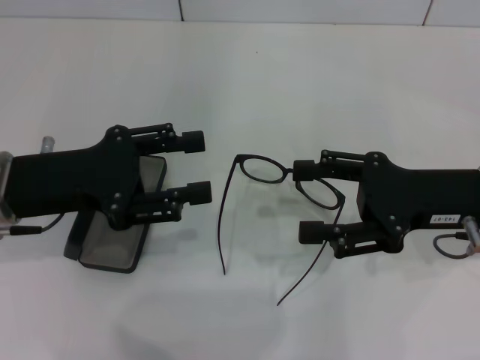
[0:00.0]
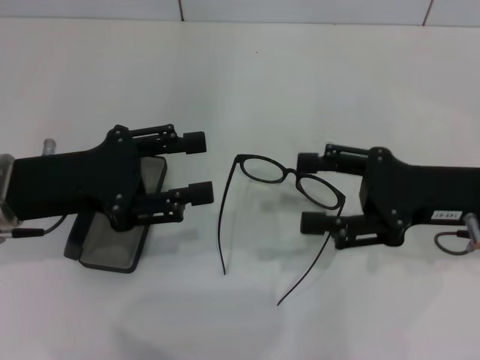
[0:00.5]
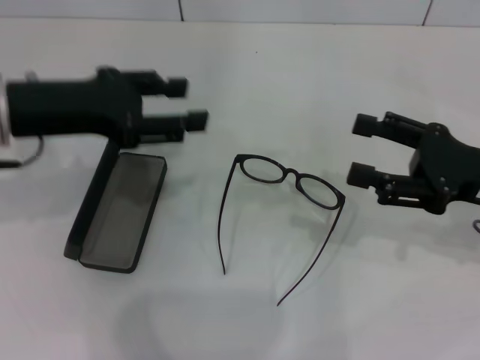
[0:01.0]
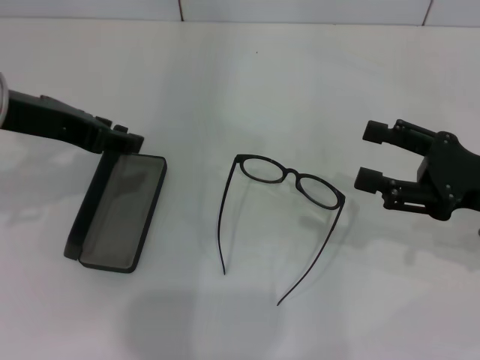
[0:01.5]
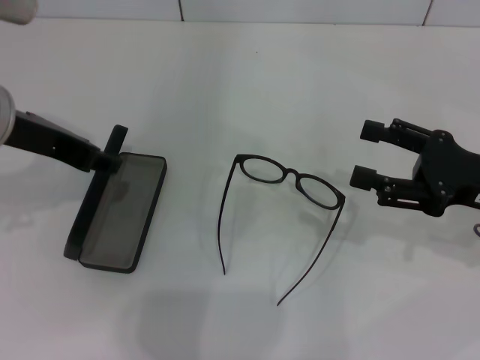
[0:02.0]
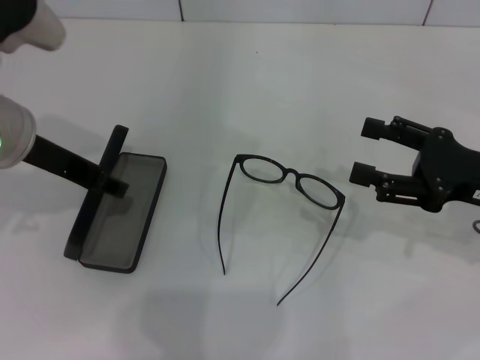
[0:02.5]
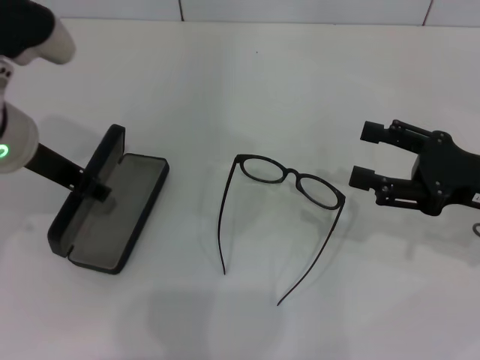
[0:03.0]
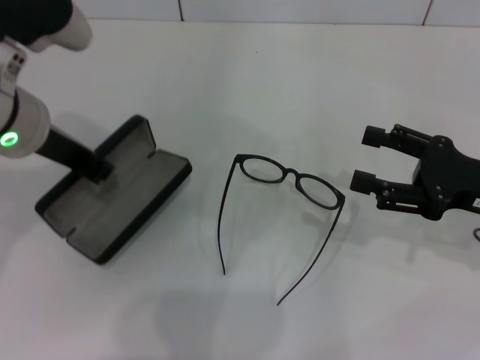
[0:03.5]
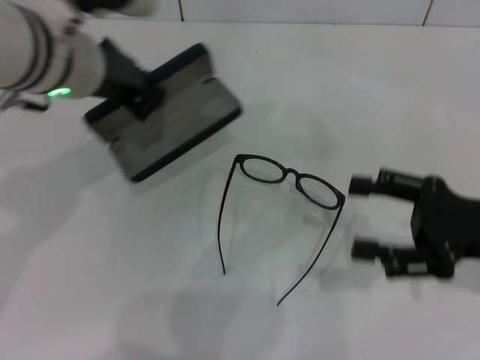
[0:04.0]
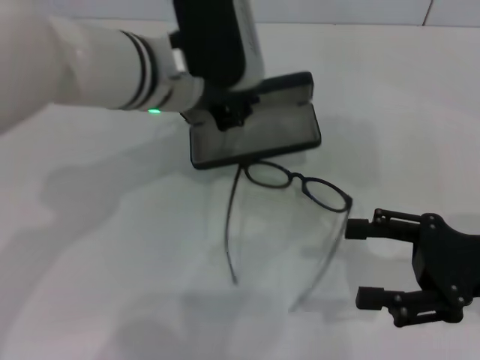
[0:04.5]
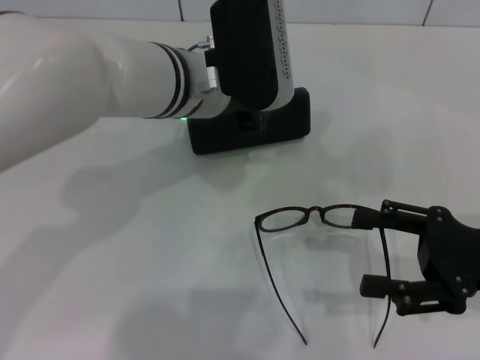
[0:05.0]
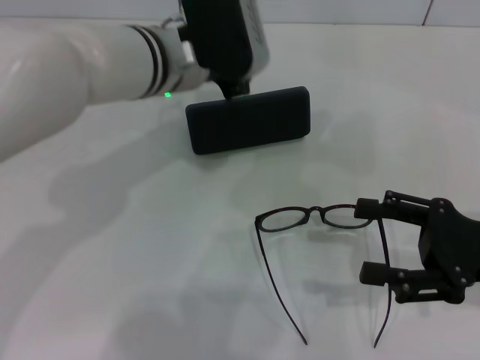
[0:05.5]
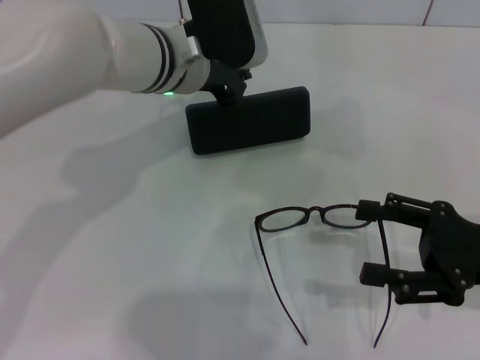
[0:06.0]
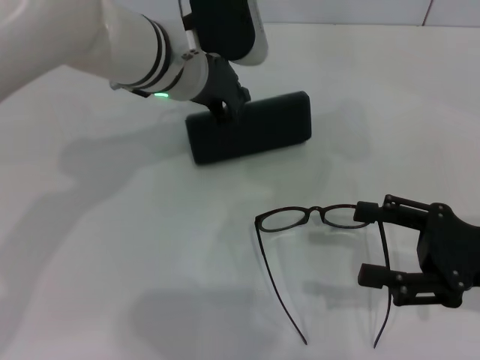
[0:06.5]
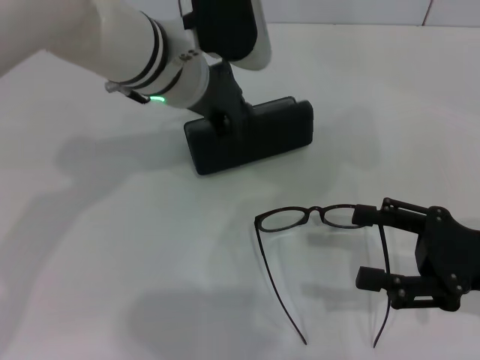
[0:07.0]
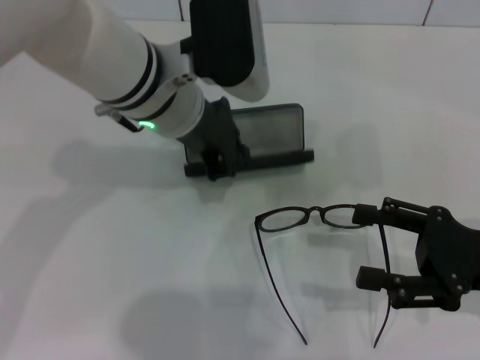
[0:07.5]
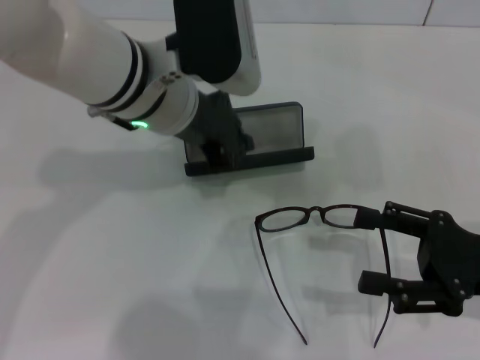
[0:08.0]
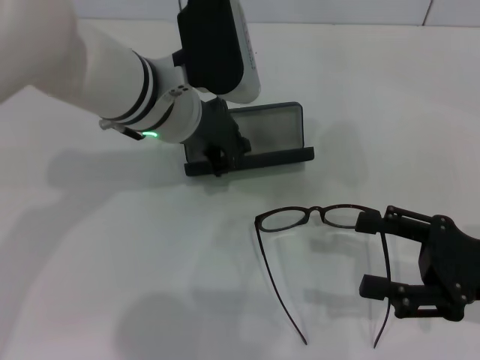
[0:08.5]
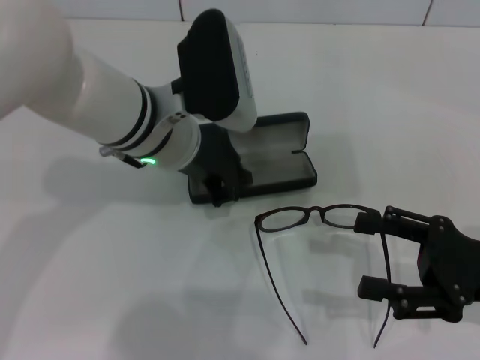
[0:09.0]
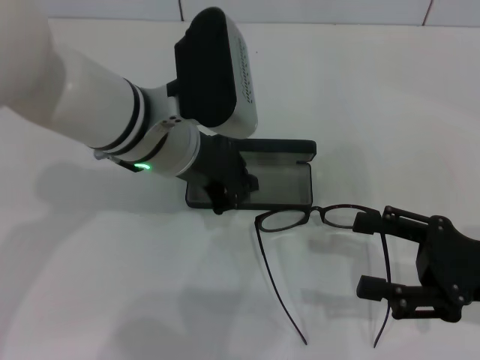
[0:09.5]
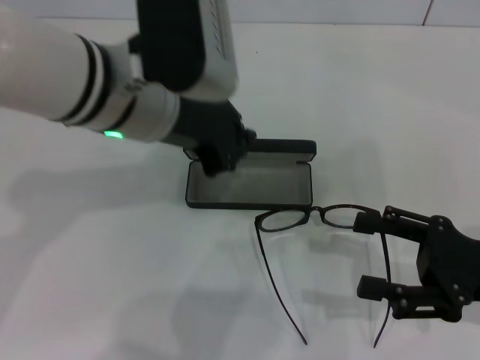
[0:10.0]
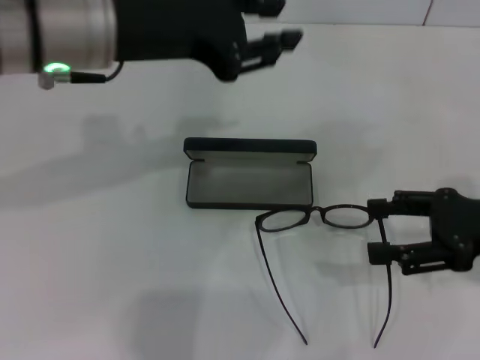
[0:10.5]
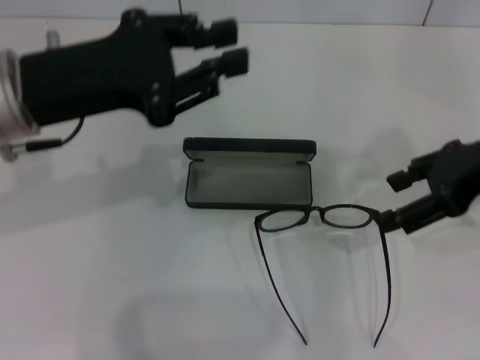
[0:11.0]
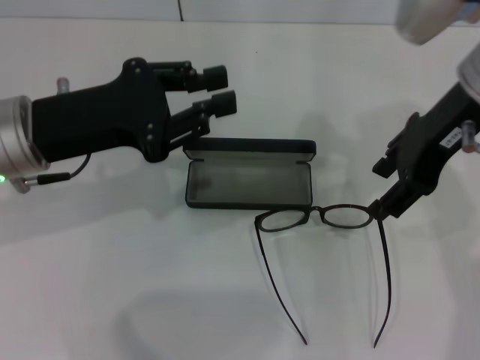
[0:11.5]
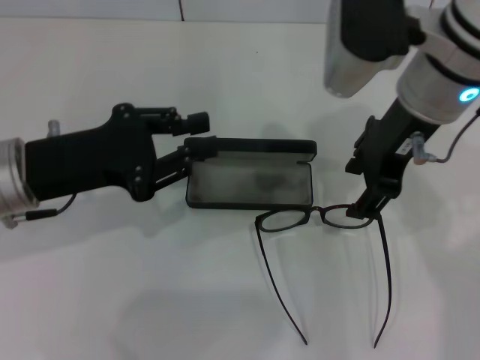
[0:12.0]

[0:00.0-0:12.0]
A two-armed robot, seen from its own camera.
Step, 0:00.0 to 0:03.0: Grab the glasses case with your left hand.
Step, 0:03.5 to 0:09.0: Place the glasses case in the center of the table with your left hand.
0:00.0 to 0:02.0: The left gripper is displaced upward by some 10 cm, while the right gripper moves some 5 cm.
0:02.0 to 0:04.0: The left gripper shifts about 5 cm to the right, and closes.
0:04.0 to 0:06.0: The left gripper travels to the right, downward and forward by about 10 cm.
0:06.0 to 0:08.0: The left gripper shifts roughly 5 cm backward.
0:08.0 to 0:10.0: There are only small adjustments of the grippers.
0:10.0 to 0:12.0: The left gripper is displaced to the left and downward by approximately 15 cm, and opens. Meanwhile the right gripper heads to the left, upward and forward, covering approximately 25 cm.

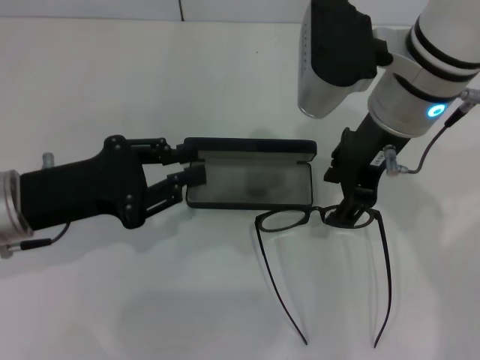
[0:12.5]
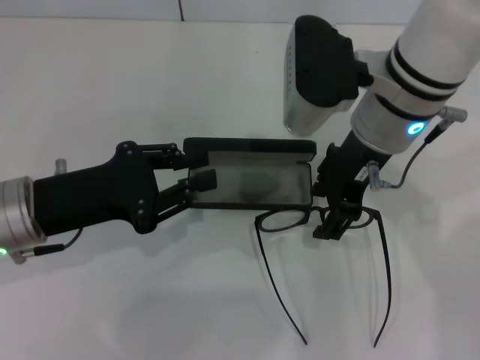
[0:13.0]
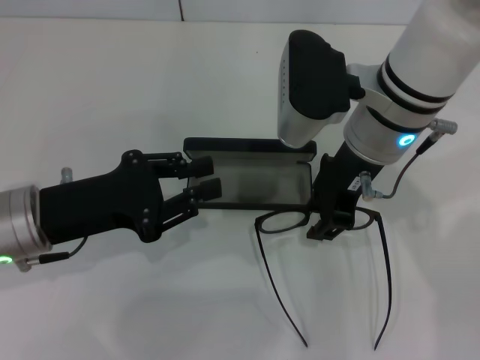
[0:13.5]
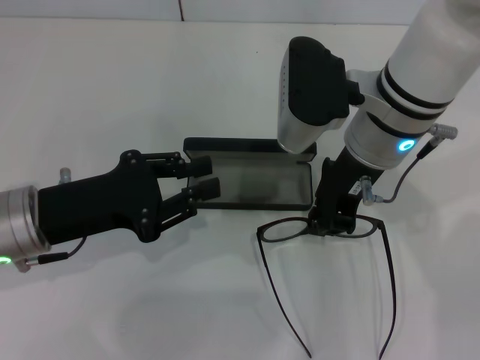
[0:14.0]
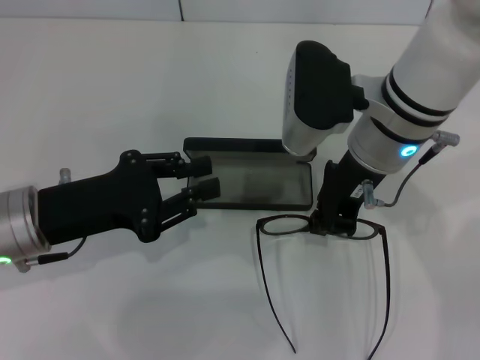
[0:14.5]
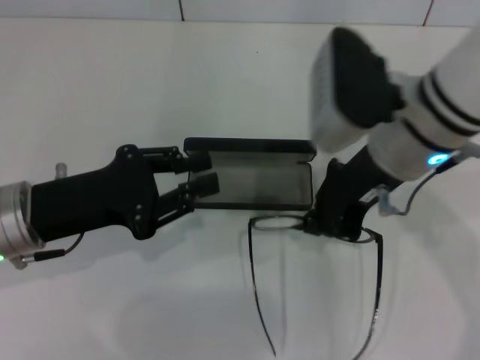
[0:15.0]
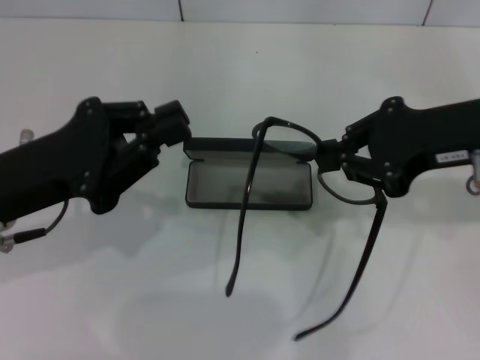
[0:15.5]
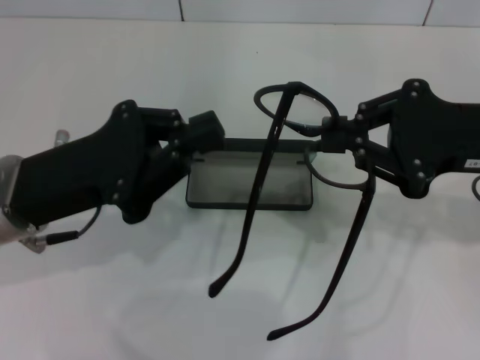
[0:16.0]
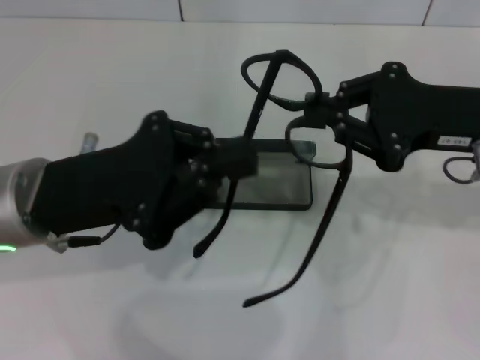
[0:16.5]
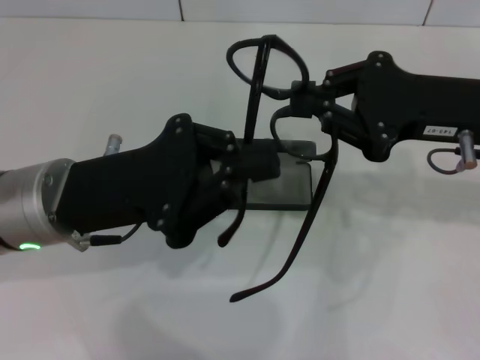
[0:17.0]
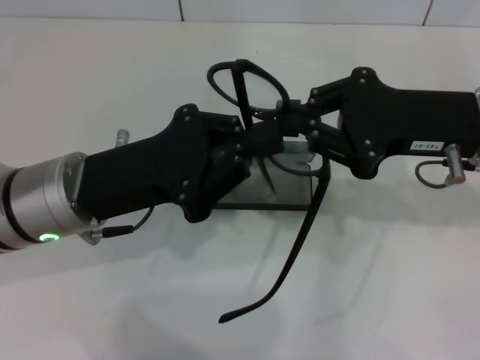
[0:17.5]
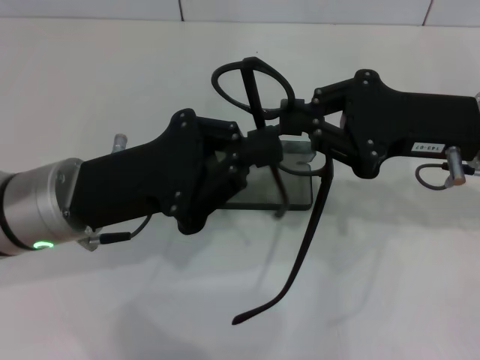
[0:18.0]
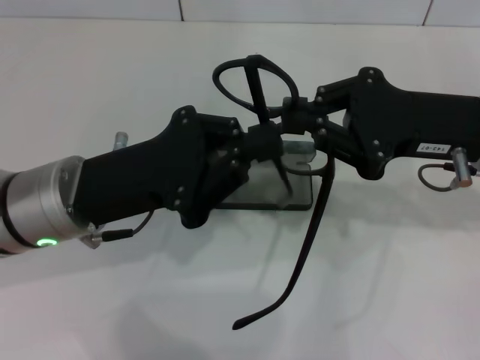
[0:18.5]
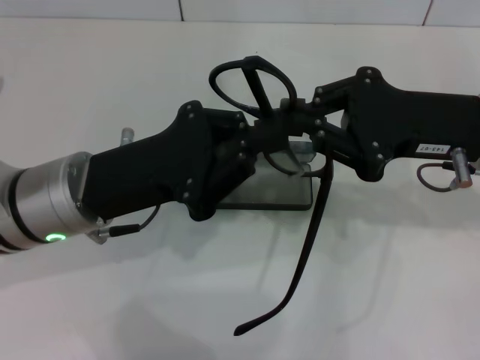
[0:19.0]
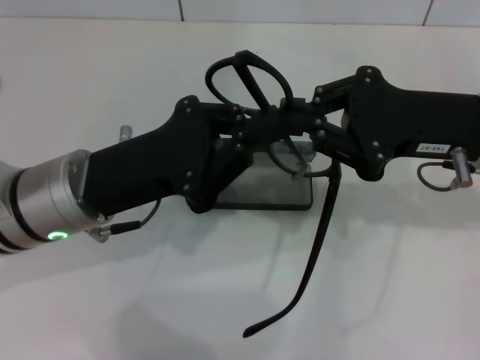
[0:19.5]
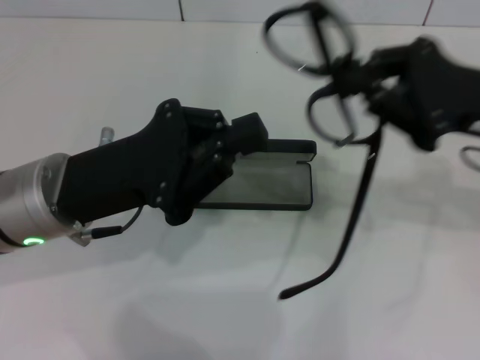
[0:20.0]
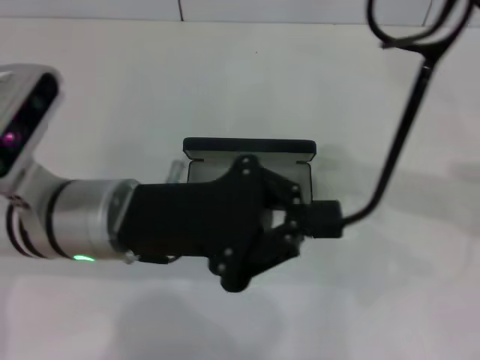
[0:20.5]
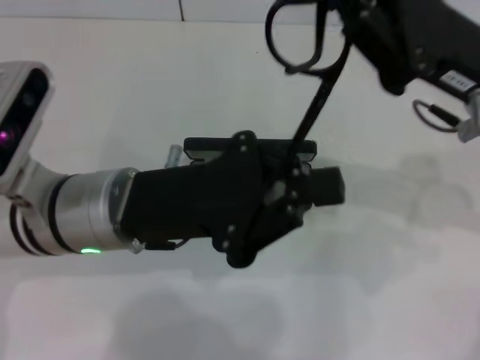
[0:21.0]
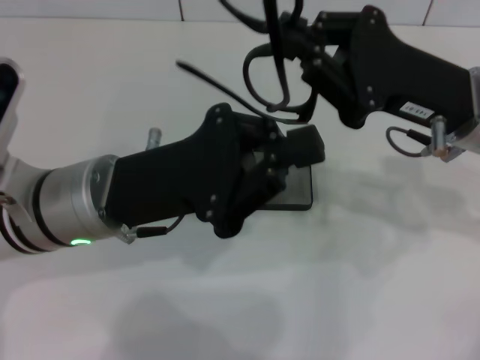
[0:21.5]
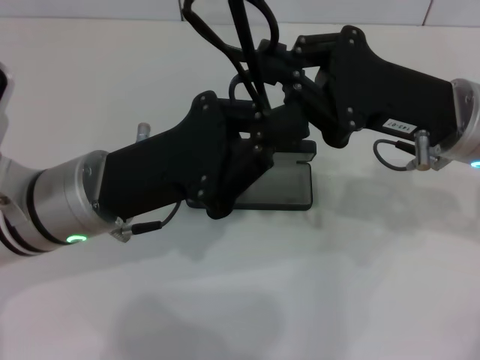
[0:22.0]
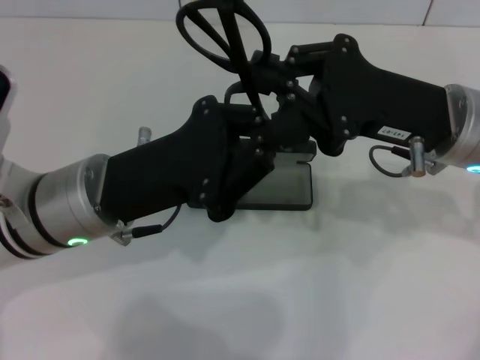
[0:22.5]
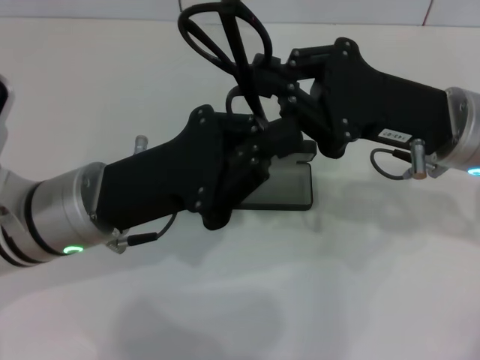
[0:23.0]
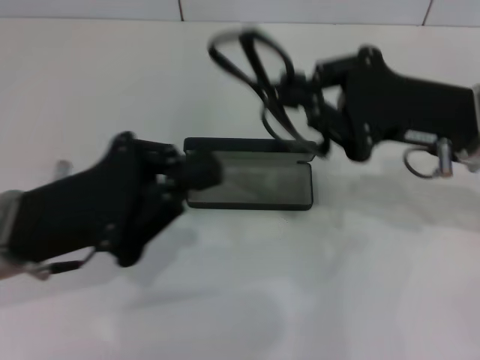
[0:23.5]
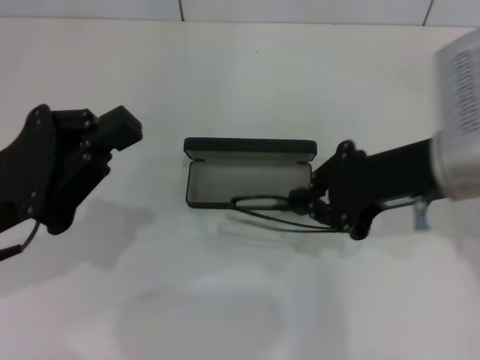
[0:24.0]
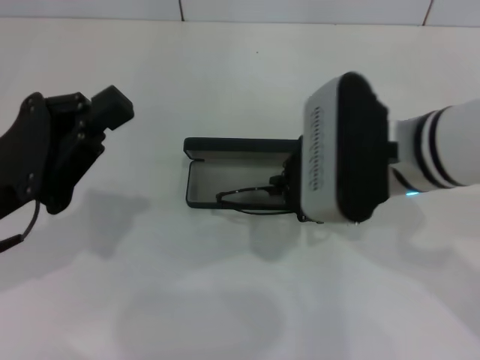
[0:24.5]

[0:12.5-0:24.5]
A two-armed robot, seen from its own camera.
Step, 0:12.5 to 0:14.5: Grab the eyeglass frame with your right hand.
Step, 0:15.0 to 0:23.0: Lift the glasses with your right hand.
0:12.5 to 0:14.5: The right gripper closes its fingers.
0:14.5 to 0:16.5: The right gripper shifts roughly 15 cm to the right; the left gripper moves approximately 5 cm, and closes up.
0:16.5 to 0:18.5: The grippers stay close to where they were, moving slightly.
0:18.5 to 0:20.5: The right gripper moves some 5 cm.
0:20.5 to 0:22.5: The right gripper goes about 10 cm to the left.
0:22.5 to 0:24.5: The left gripper travels to the left by about 10 cm. The right gripper moves to the left, about 5 cm.

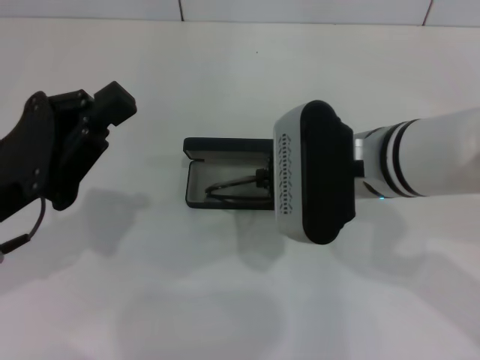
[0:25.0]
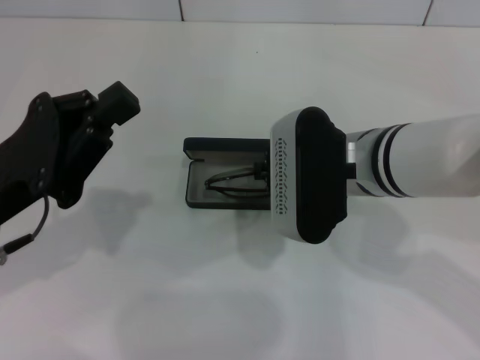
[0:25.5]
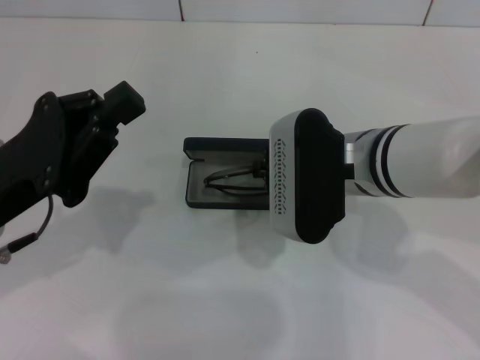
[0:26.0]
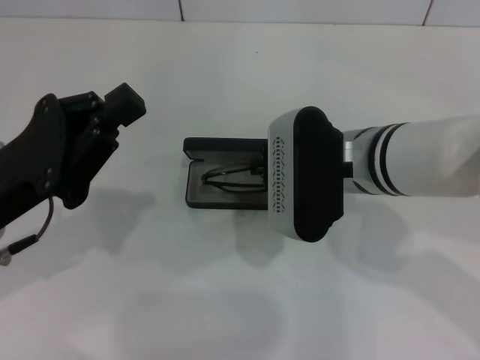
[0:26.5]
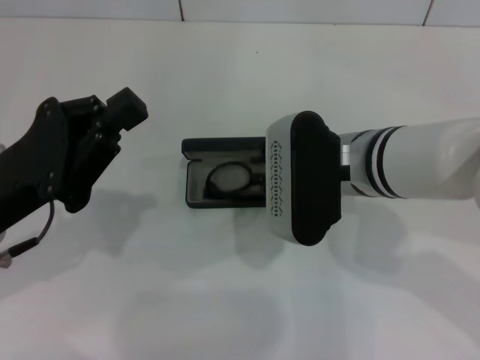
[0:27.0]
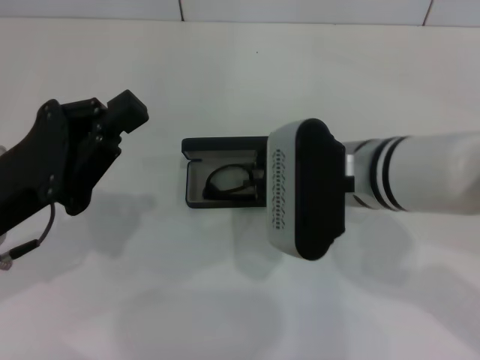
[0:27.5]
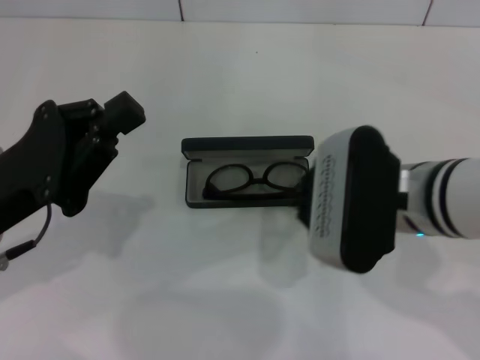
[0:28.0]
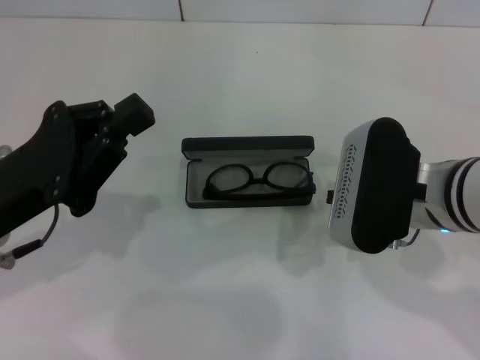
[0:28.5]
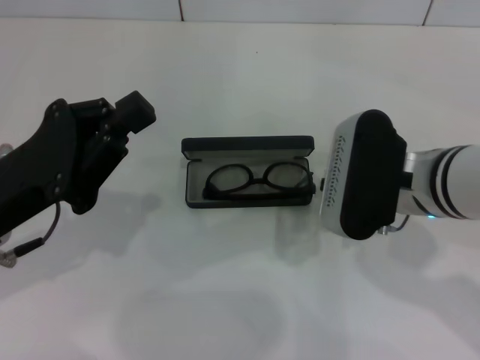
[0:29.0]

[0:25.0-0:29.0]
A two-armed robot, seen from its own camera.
0:25.0 to 0:27.0: The grippers move only a little.
0:27.0 to 0:29.0: The right gripper heads to the right, covering approximately 5 cm.
